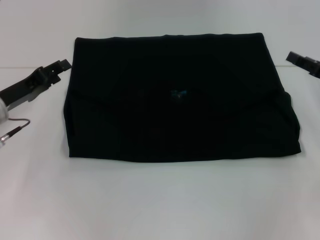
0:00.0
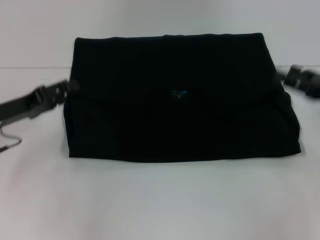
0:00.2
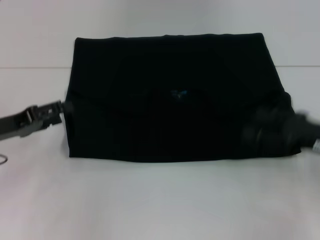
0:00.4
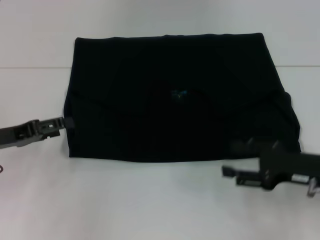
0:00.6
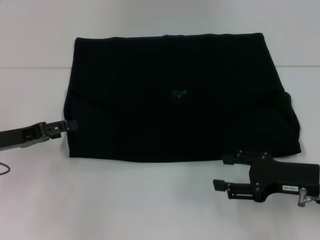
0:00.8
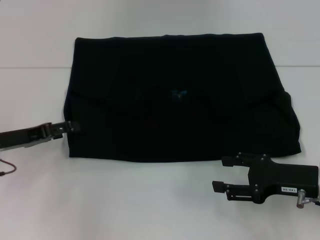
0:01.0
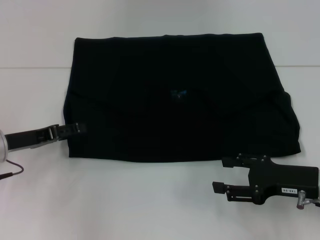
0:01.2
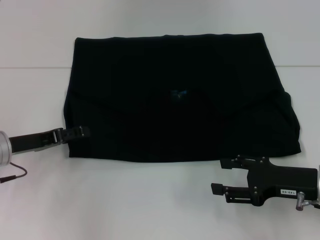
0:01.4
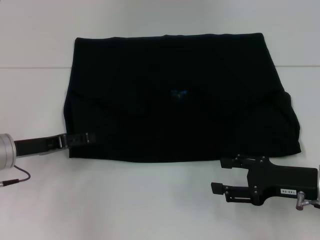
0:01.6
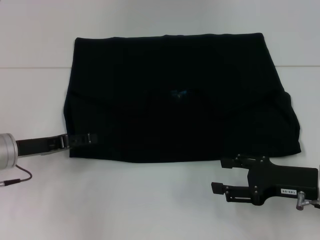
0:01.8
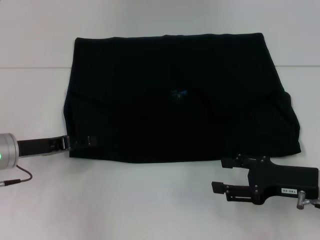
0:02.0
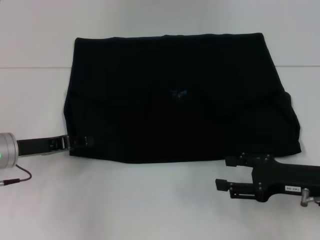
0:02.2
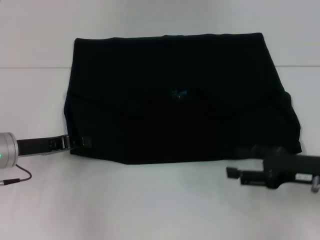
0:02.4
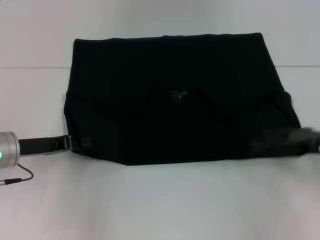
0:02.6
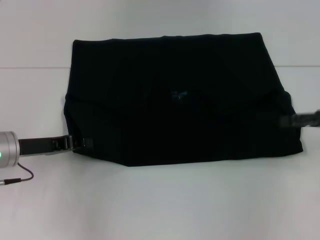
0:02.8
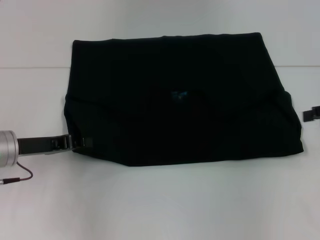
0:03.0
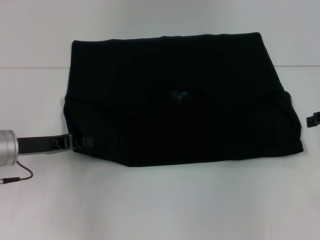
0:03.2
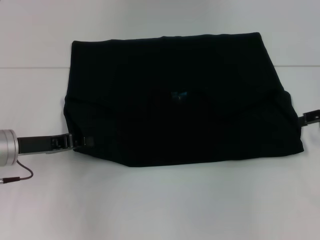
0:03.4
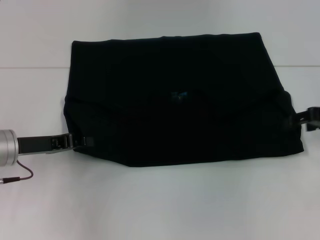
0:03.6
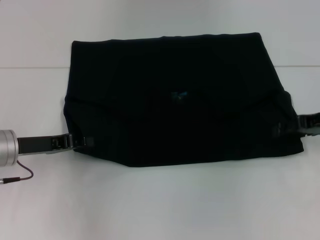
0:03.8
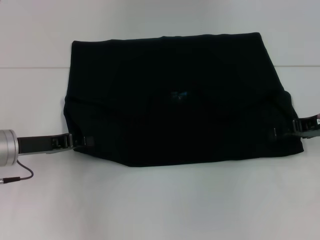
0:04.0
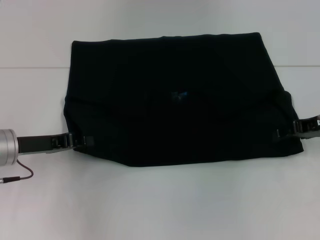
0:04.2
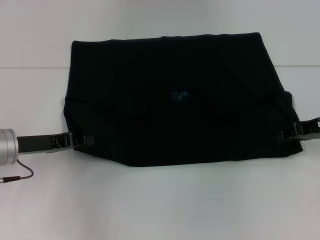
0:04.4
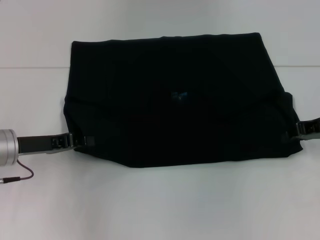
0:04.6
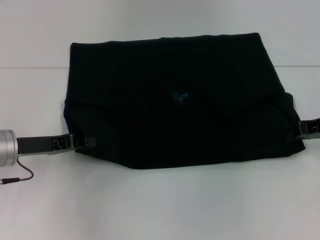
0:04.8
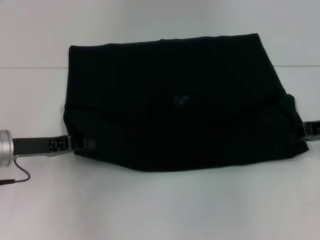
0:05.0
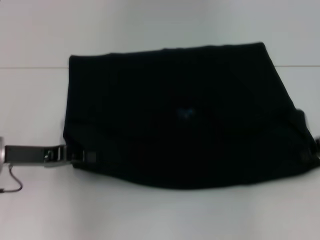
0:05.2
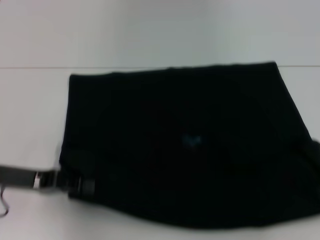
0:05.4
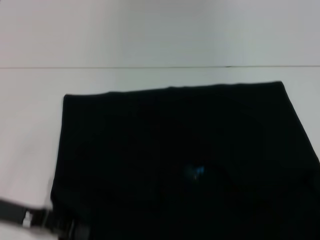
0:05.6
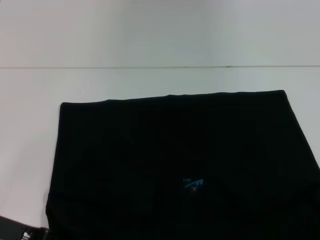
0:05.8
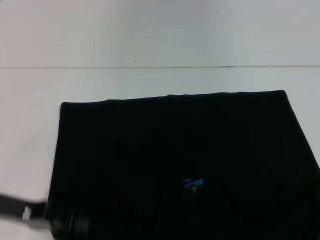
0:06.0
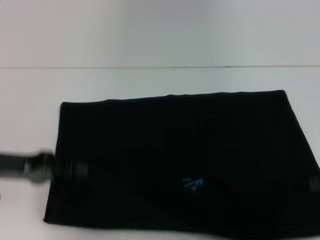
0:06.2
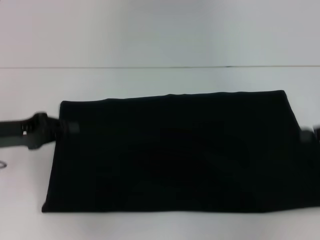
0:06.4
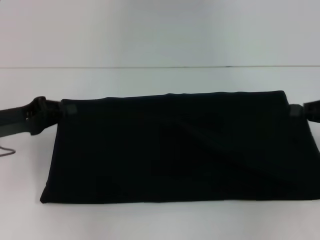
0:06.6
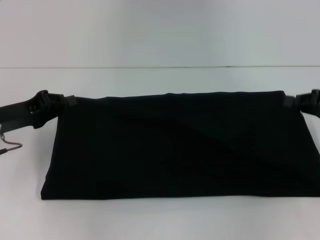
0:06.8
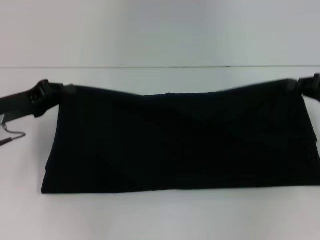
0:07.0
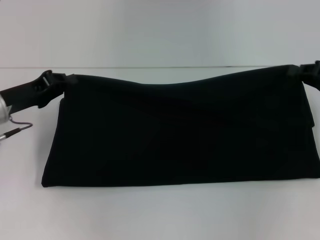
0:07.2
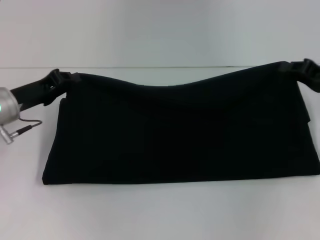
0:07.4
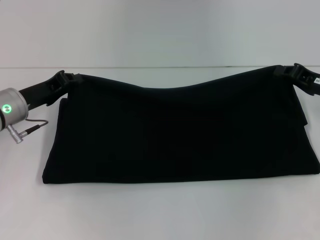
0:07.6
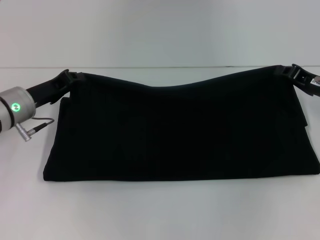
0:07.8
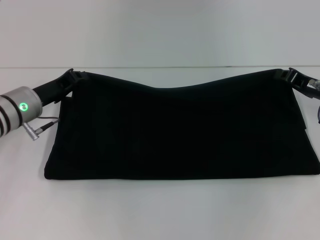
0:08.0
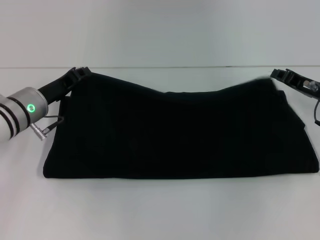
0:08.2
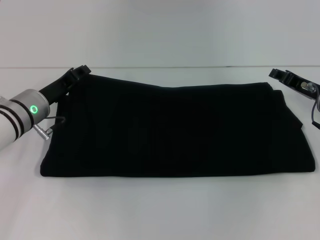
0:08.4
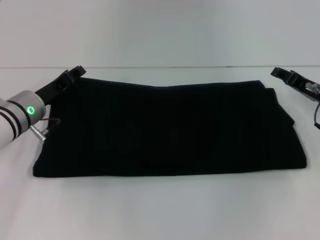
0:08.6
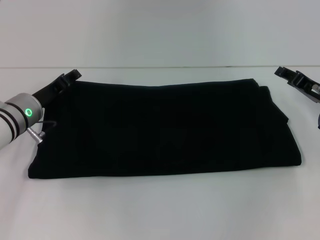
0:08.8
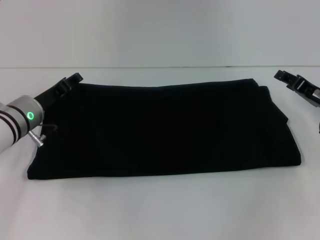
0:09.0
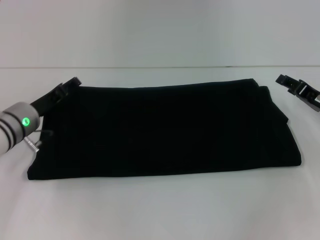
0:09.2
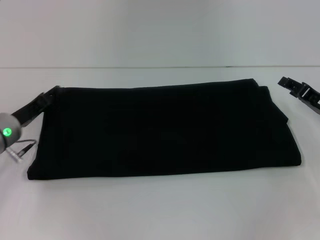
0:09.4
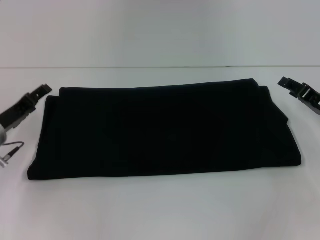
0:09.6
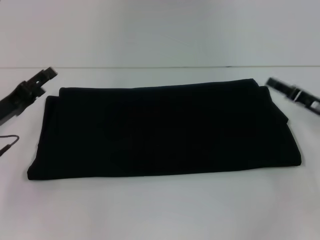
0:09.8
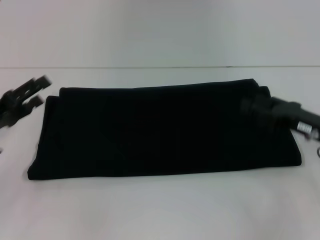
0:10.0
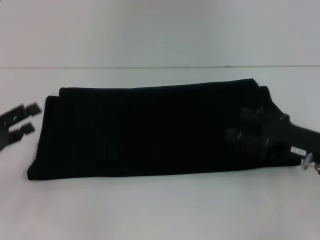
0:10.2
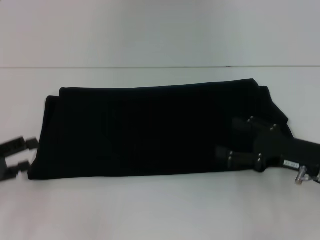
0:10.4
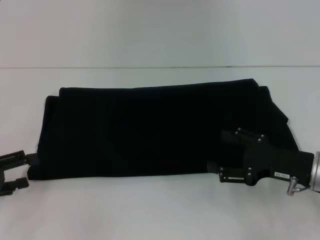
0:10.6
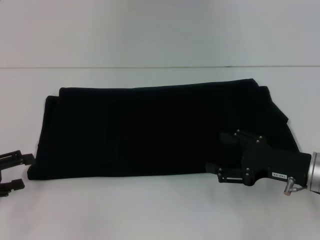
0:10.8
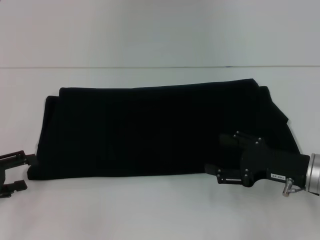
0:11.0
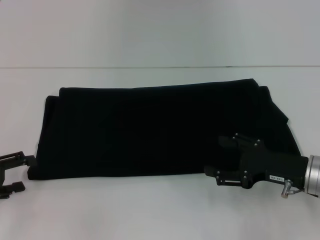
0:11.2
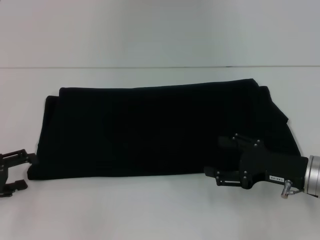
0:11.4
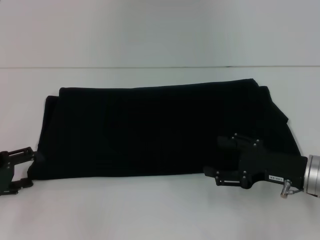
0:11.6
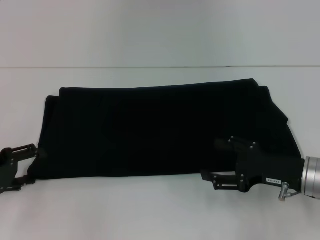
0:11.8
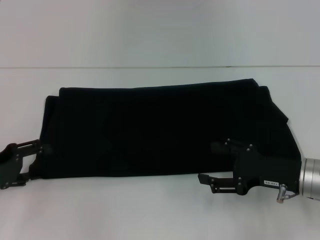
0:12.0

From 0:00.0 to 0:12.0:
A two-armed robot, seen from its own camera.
Step, from 0:00.2 to 0:05.8: Pull the clothes with your left hand.
Step, from 0:00.2 to 0:05.8: Pull the clothes with your right hand.
Step, from 0:06.0 to 0:09.6: Fold the clothes with your right hand.
From 0:00.0 to 0:01.6: The left gripper opens up; the right gripper shifts approximately 10 cm backward and to the left, and opens.
From 0:01.6 to 0:03.0: The right gripper moves upward, to the right and forward, some 15 cm; the left gripper closes its fingers.
From 0:03.0 to 0:04.4: The right gripper travels to the left by about 5 cm.
From 0:04.4 to 0:06.0: The left gripper shifts approximately 5 cm backward. Meanwhile the right gripper goes some 10 cm backward, and closes up.
From 0:06.0 to 0:07.6: Both grippers travel together forward, roughly 10 cm.
From 0:07.6 to 0:09.0: The left gripper opens. The right gripper opens.
From 0:09.0 to 0:10.4: The right gripper shifts roughly 10 cm backward; the left gripper heads backward and to the left, covering roughly 20 cm.
From 0:10.4 to 0:12.0: The grippers make only small movements.

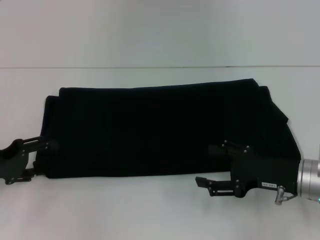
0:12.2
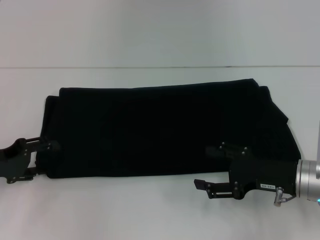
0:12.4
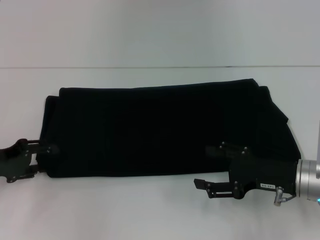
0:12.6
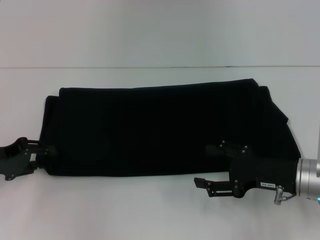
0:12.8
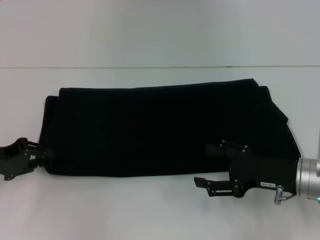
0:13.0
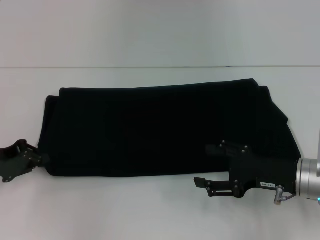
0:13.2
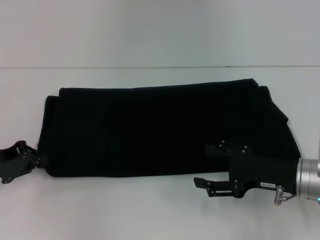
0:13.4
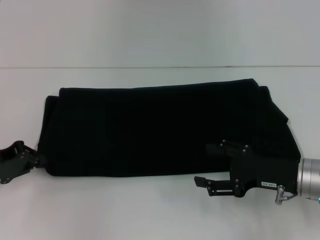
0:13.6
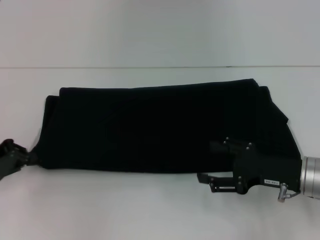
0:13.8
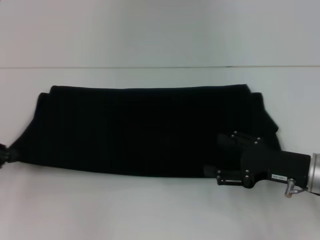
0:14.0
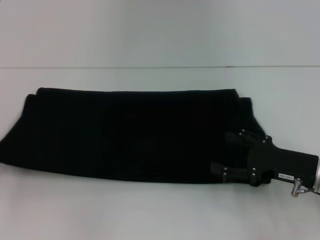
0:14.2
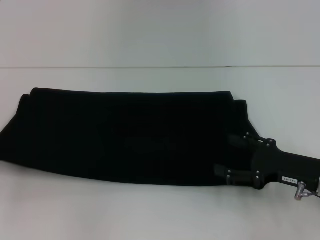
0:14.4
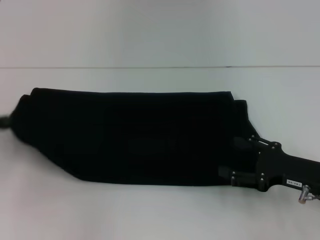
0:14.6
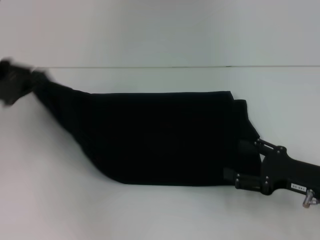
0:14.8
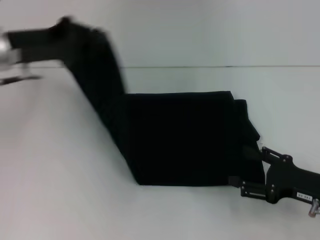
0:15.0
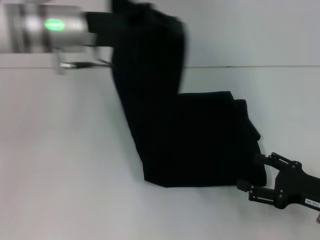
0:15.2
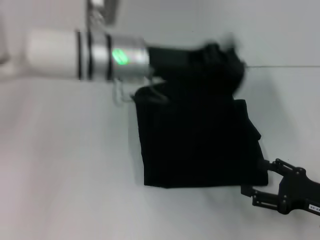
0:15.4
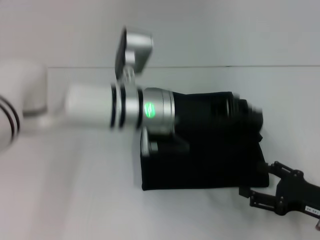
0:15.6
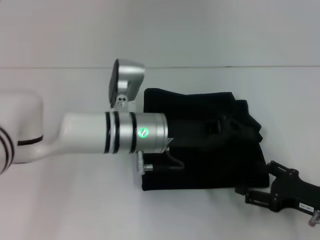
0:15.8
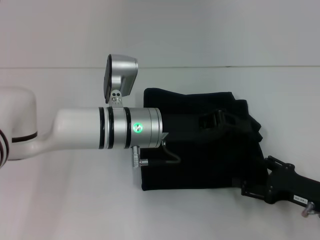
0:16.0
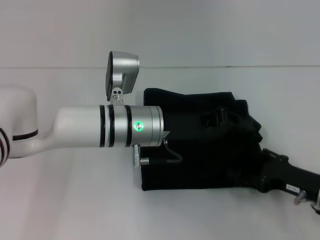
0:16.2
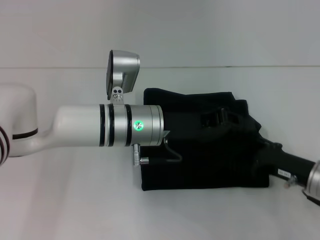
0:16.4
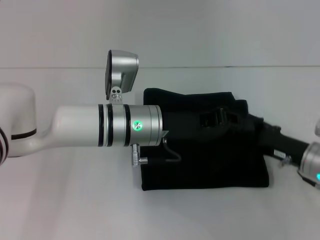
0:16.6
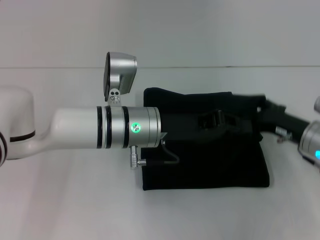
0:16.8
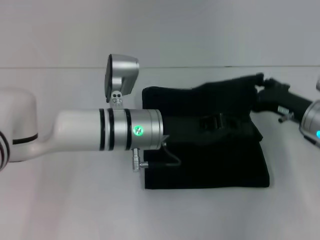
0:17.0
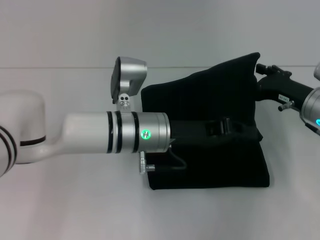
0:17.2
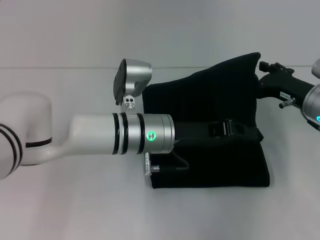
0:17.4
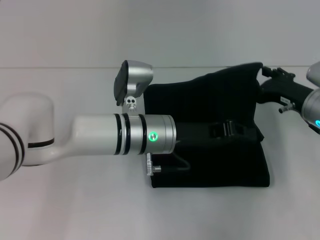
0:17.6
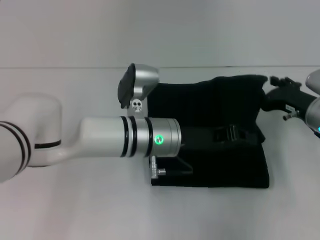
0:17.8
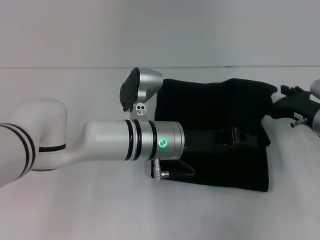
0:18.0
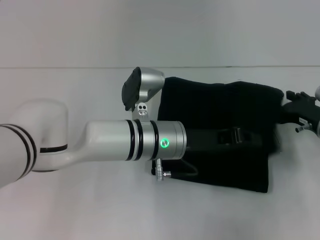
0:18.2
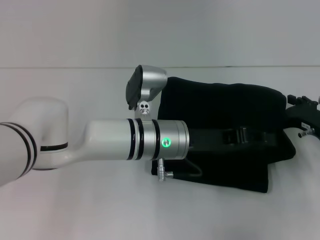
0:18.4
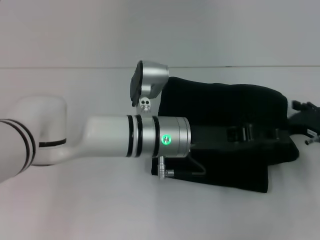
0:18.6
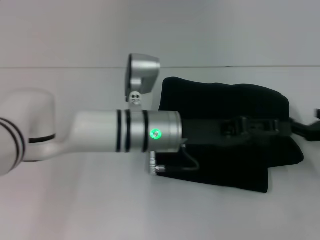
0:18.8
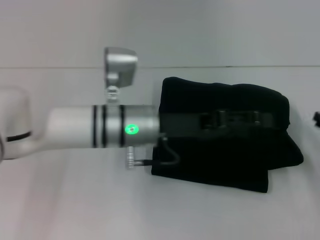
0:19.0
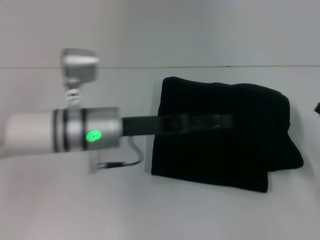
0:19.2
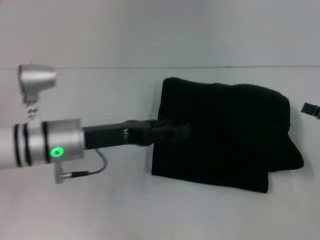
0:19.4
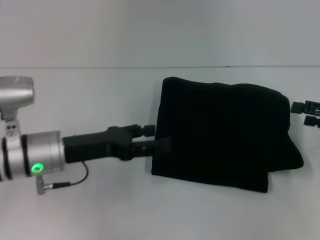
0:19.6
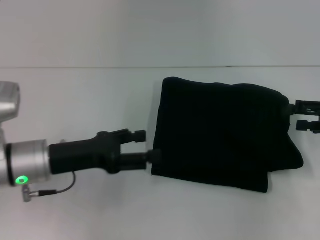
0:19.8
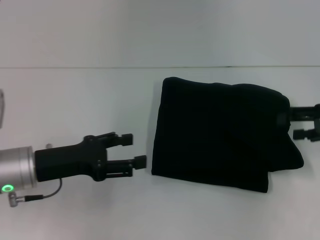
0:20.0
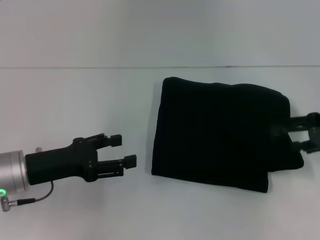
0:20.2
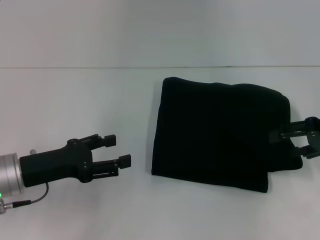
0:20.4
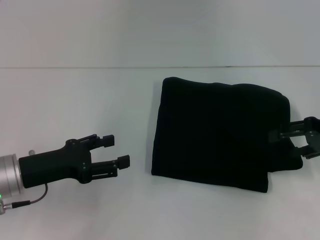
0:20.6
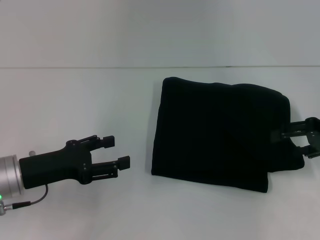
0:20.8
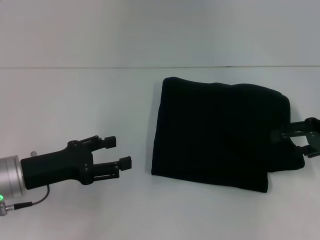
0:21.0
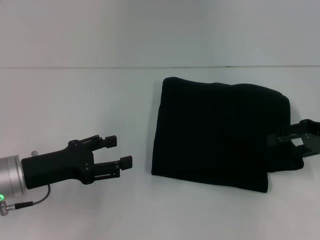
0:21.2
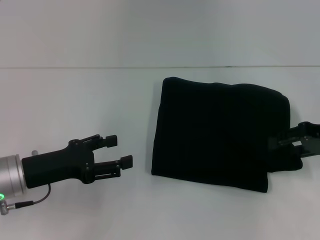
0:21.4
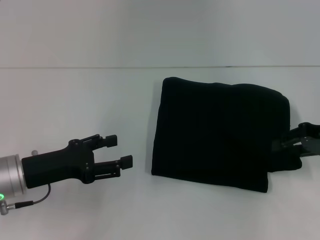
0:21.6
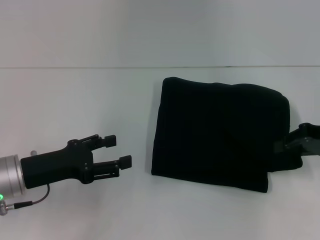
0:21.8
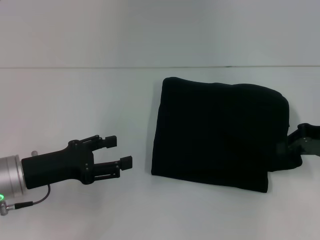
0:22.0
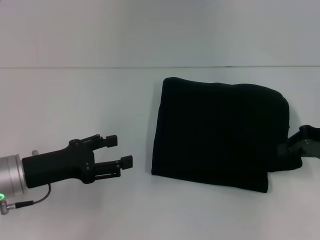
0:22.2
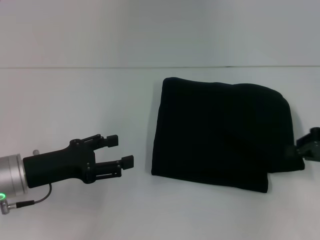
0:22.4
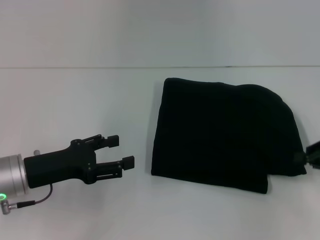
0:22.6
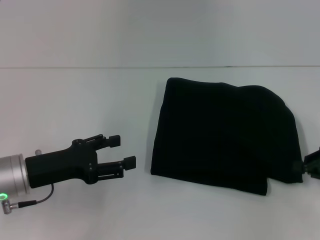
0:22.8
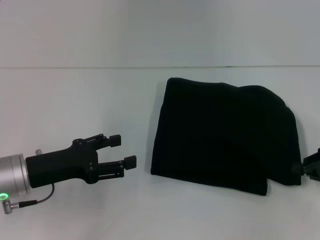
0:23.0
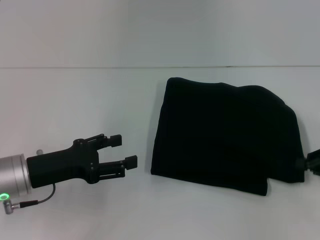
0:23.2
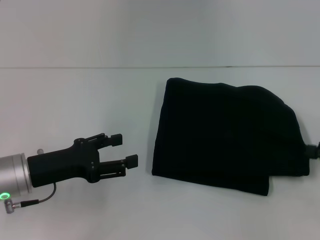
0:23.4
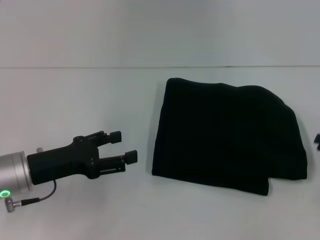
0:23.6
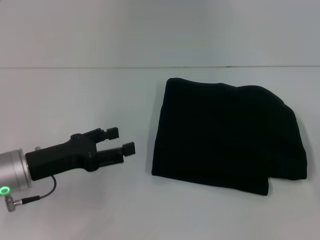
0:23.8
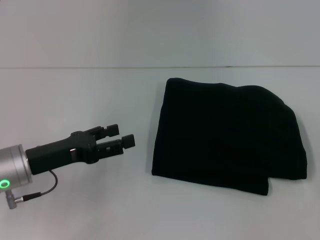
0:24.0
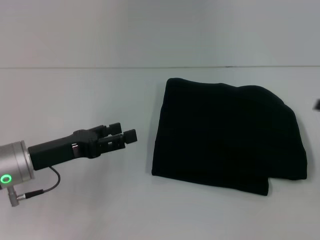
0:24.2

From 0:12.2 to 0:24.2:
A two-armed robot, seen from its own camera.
Step, from 0:12.2 to 0:16.0: Fold the clothes with your left hand.
From 0:12.2 to 0:13.8: The left gripper closes its fingers.
From 0:13.8 to 0:15.2: The left gripper moves to the right, upward and forward, approximately 25 cm, while the right gripper moves to the right, approximately 5 cm.
From 0:15.2 to 0:16.6: The left gripper heads downward, to the right and backward, covering roughly 15 cm. The right gripper travels forward by some 5 cm.
From 0:16.6 to 0:18.2: The right gripper moves forward, about 5 cm.
From 0:18.2 to 0:19.8: The right gripper travels upward and to the right by about 10 cm; the left gripper moves to the left, roughly 20 cm, and opens.
From 0:19.8 to 0:21.2: The grippers move only a little.
From 0:21.2 to 0:22.6: The right gripper changes place by approximately 5 cm, and closes its fingers.
From 0:22.6 to 0:24.2: The right gripper opens its fingers.
